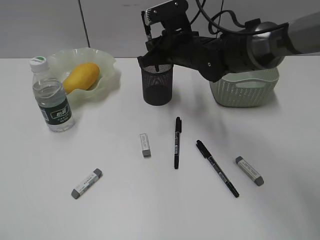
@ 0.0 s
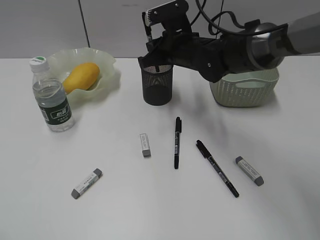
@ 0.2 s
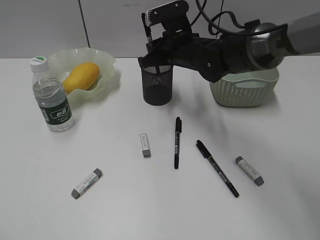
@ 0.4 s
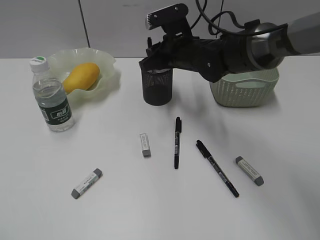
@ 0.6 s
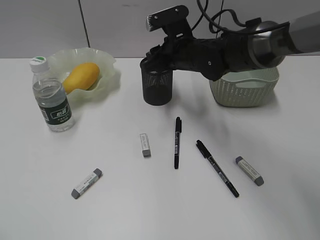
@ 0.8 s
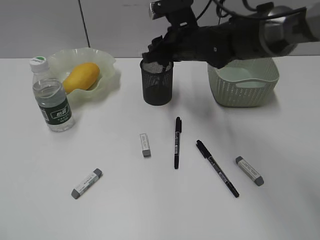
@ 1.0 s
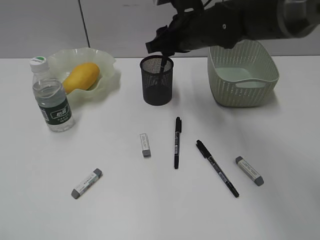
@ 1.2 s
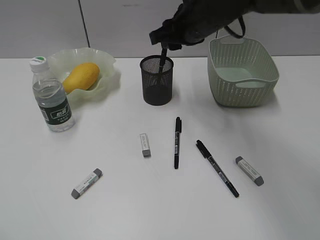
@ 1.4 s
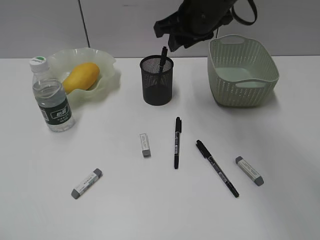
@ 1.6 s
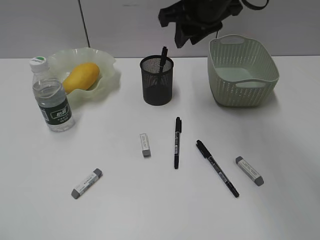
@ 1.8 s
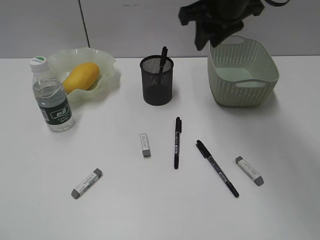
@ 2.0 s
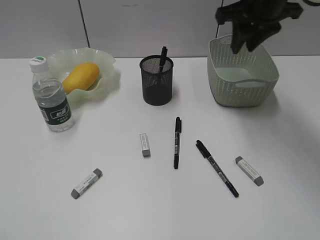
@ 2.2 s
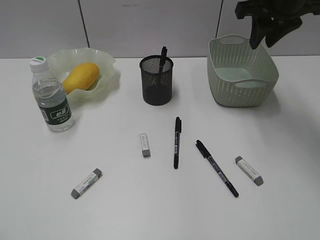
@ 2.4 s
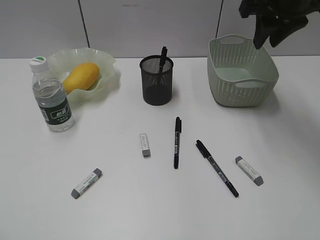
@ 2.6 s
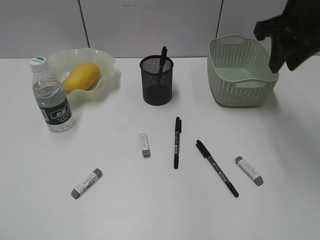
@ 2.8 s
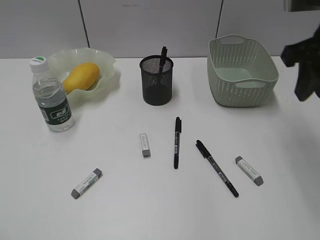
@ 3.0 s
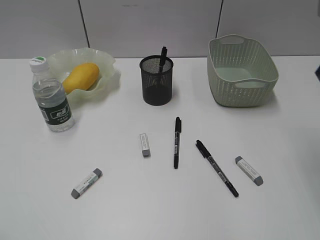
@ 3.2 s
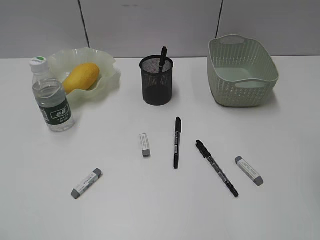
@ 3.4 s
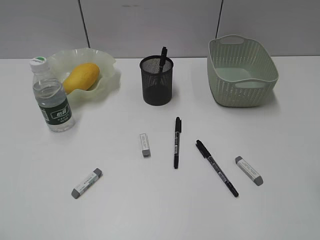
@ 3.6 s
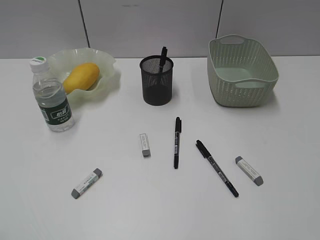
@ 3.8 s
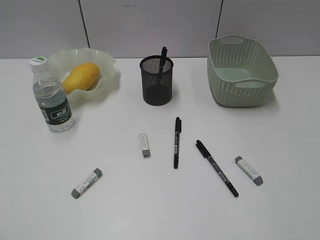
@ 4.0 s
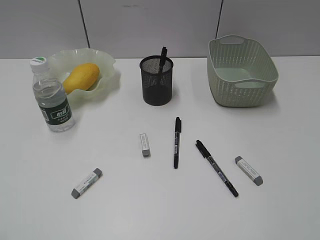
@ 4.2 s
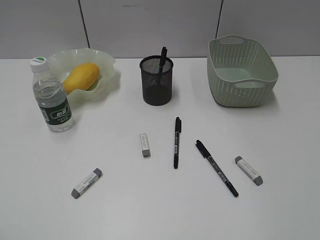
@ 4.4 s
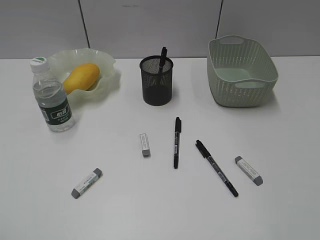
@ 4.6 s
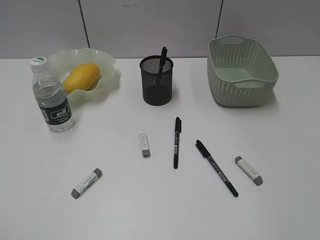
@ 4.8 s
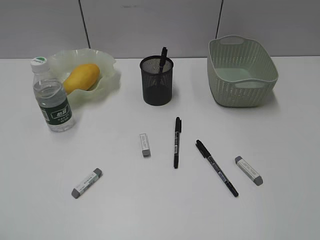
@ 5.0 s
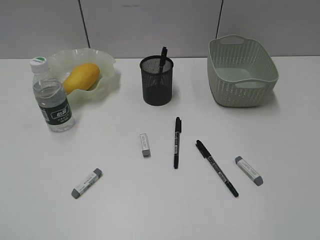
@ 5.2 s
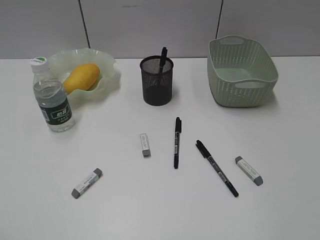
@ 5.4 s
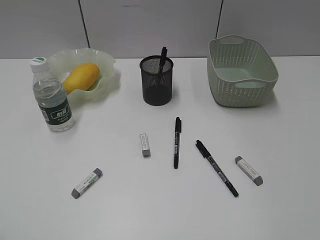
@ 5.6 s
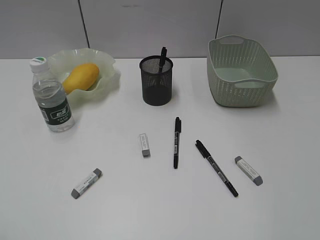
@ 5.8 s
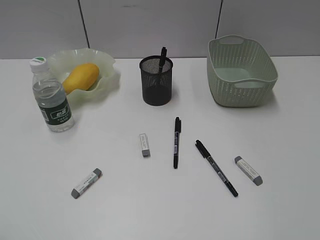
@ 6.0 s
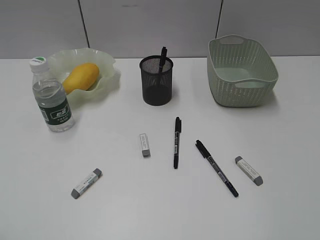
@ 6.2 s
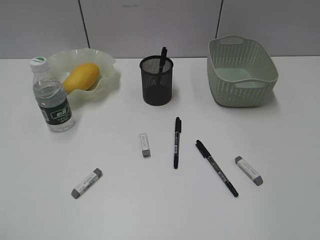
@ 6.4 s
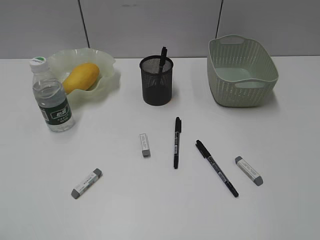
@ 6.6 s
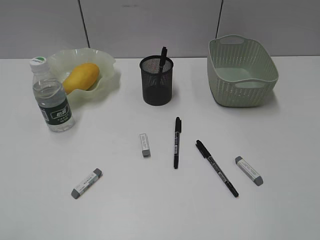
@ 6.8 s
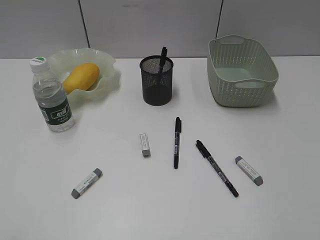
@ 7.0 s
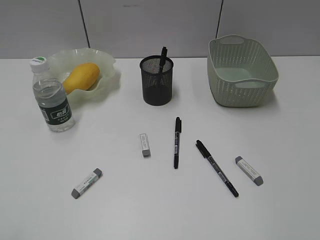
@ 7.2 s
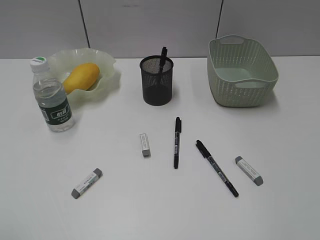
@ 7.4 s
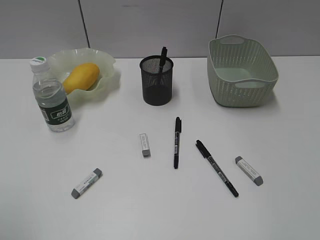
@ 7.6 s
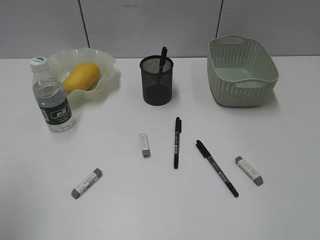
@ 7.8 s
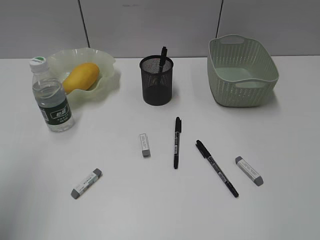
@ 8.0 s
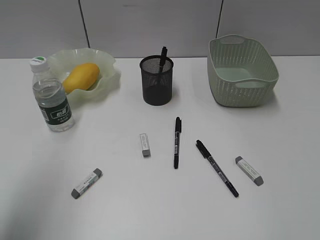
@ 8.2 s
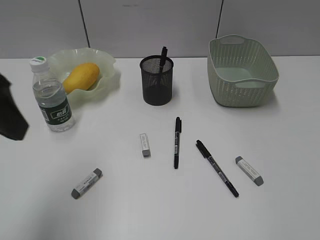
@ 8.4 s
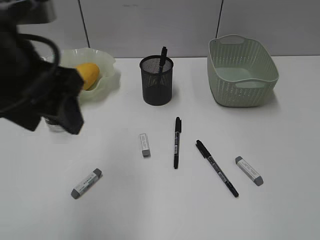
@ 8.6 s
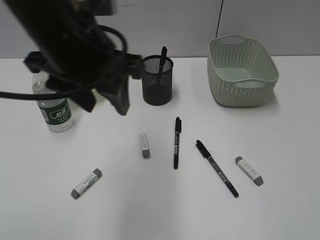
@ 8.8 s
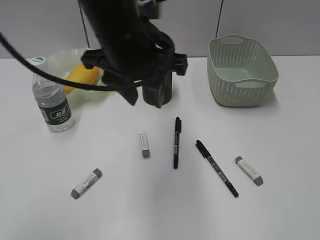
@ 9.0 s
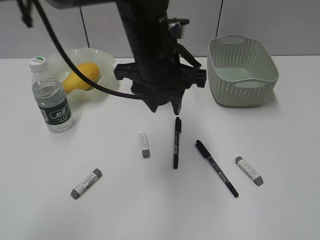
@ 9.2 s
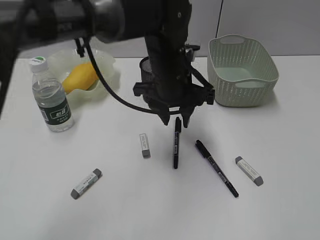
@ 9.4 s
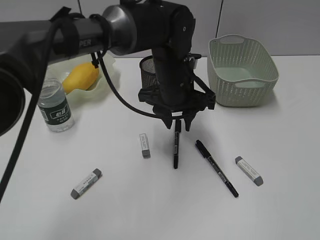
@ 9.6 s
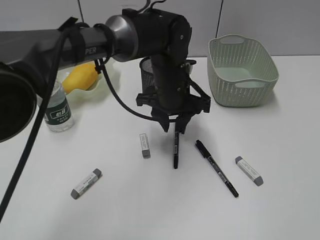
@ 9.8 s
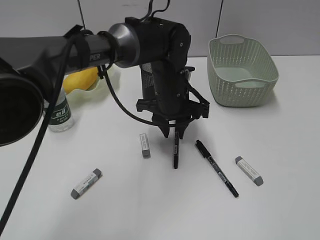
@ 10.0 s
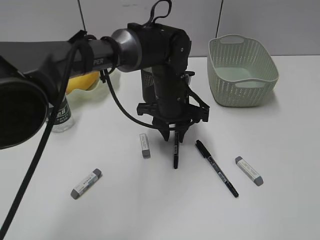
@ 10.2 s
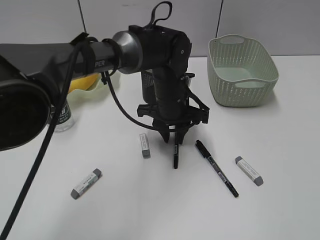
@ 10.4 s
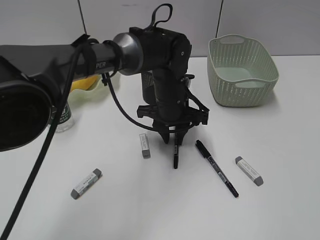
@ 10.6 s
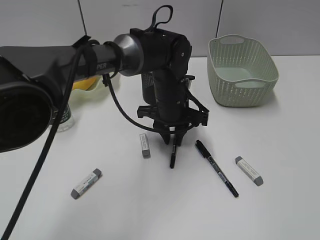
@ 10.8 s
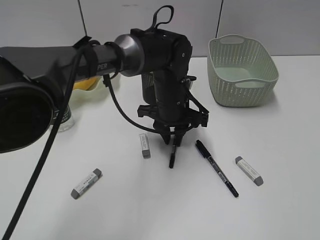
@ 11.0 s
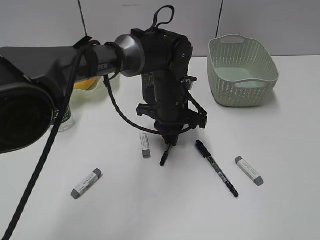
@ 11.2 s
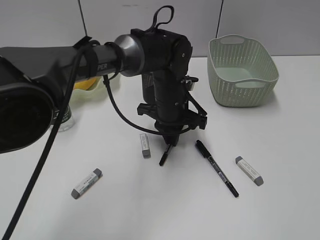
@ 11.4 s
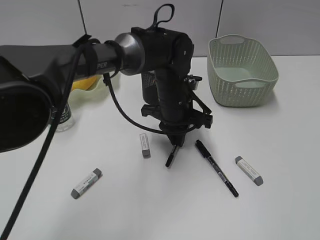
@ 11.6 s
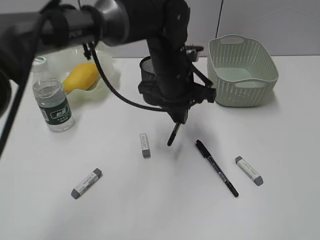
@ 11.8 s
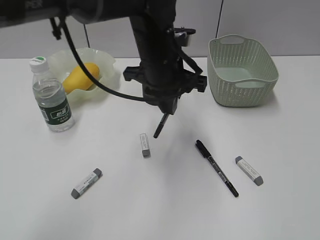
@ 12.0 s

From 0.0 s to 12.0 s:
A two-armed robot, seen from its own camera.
Step, from 1.0 s to 11.4 s: Grasp the black pen with left gripper.
From 0.0 s to 1.6 s: The right gripper goes about 10 cm upward, and opens up.
From 1.6 s to 3.0 s: The right gripper shifts about 20 cm to the right and backward.
From 3.0 s to 4.4 s: The right gripper heads backward, covering about 30 cm, and opens, then closes again.
From 7.6 s to 9.0 s: The left gripper moves to the right and forward, some 35 cm, and closes.
From 9.0 s to 10.4 s: The left gripper moves downward, forward and to the right, roughly 20 cm.
From 10.4 s to 12.0 s: The left gripper shifts roughly 10 cm upward.

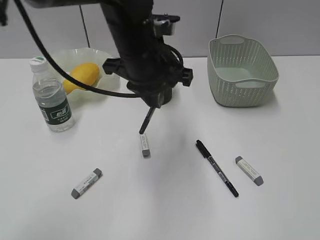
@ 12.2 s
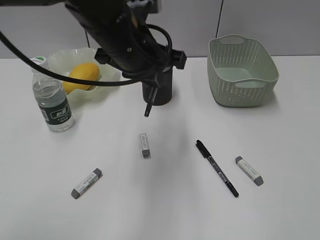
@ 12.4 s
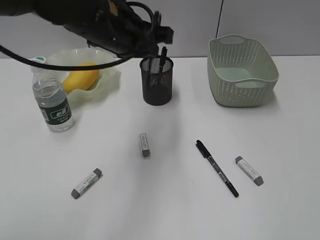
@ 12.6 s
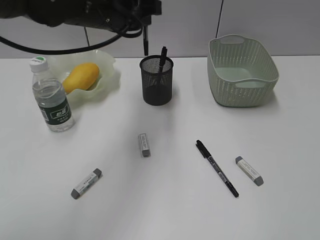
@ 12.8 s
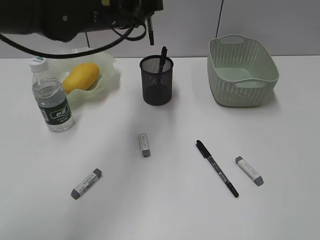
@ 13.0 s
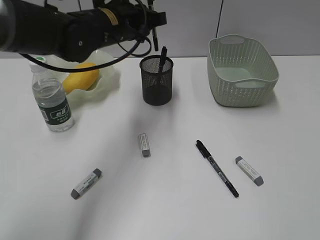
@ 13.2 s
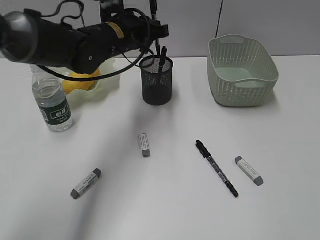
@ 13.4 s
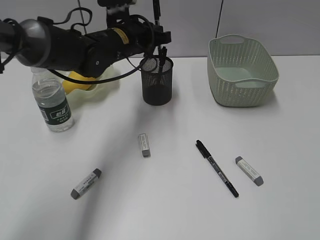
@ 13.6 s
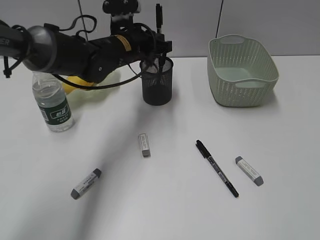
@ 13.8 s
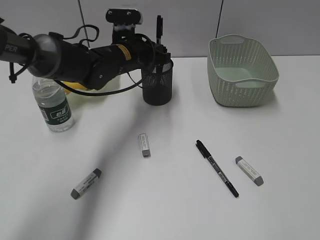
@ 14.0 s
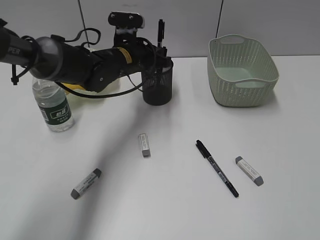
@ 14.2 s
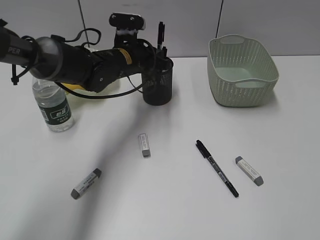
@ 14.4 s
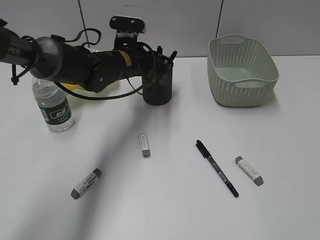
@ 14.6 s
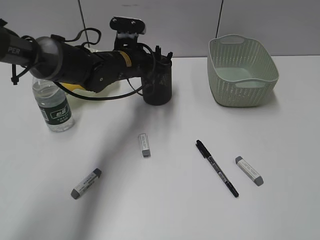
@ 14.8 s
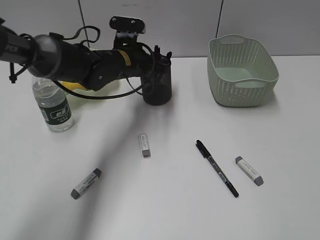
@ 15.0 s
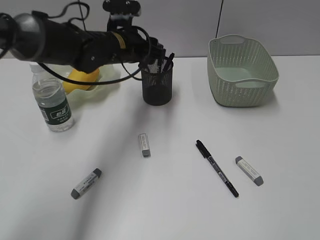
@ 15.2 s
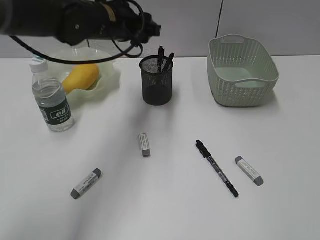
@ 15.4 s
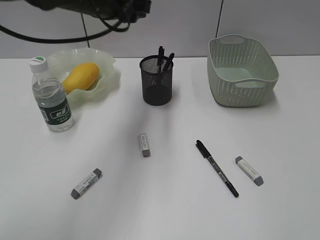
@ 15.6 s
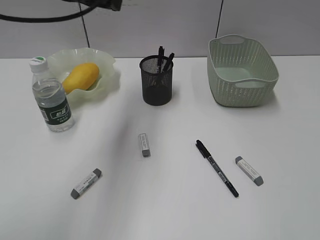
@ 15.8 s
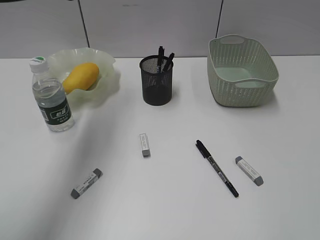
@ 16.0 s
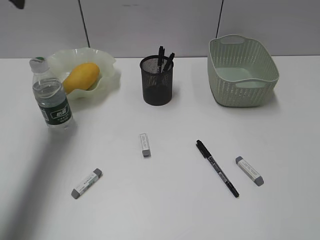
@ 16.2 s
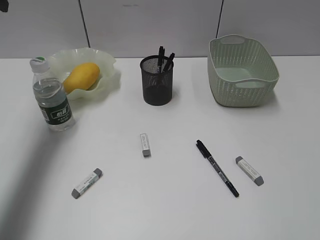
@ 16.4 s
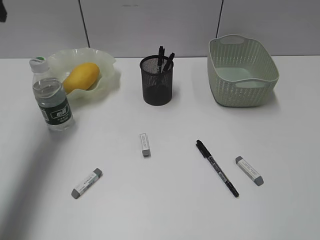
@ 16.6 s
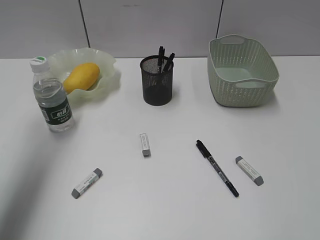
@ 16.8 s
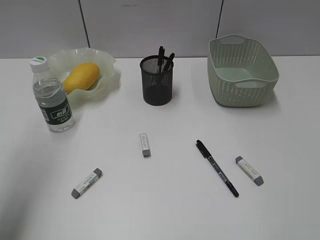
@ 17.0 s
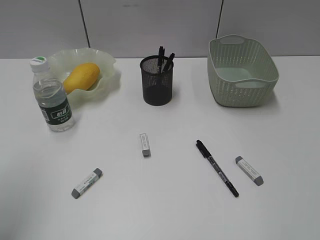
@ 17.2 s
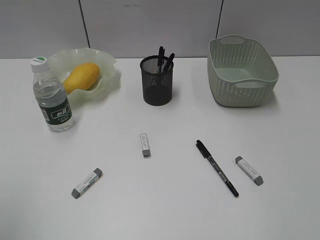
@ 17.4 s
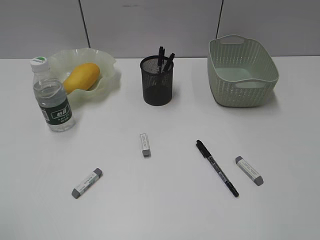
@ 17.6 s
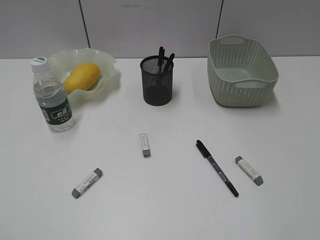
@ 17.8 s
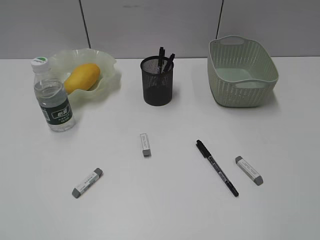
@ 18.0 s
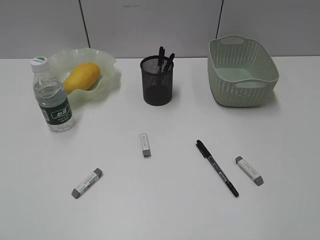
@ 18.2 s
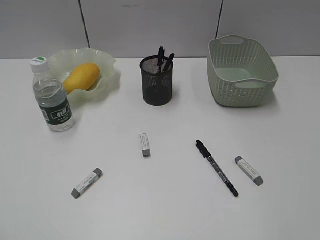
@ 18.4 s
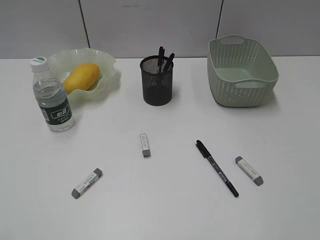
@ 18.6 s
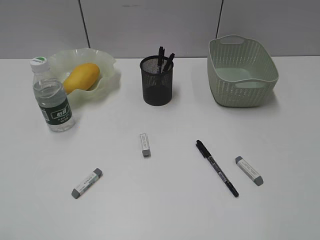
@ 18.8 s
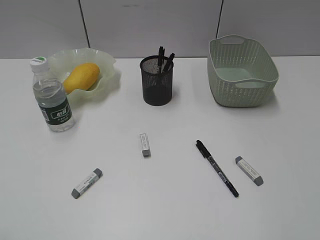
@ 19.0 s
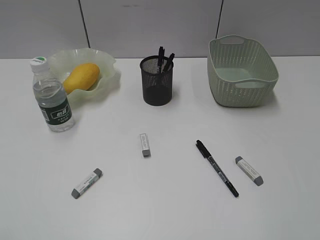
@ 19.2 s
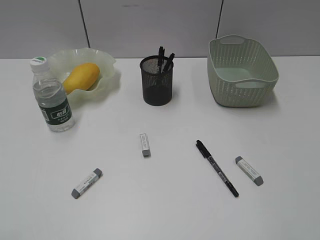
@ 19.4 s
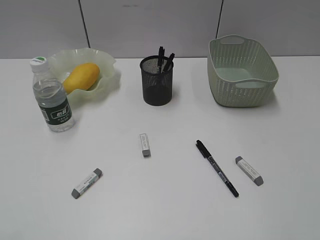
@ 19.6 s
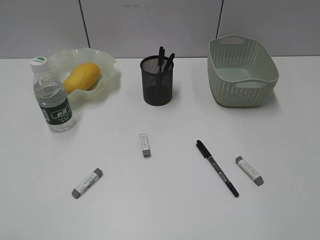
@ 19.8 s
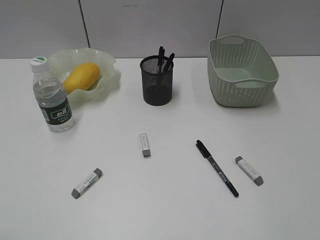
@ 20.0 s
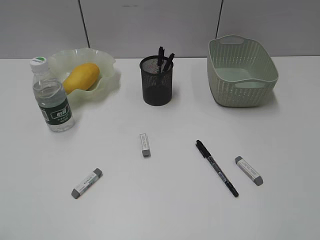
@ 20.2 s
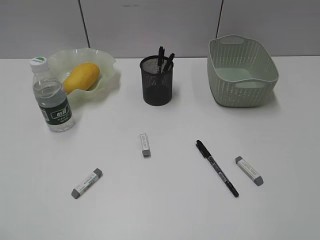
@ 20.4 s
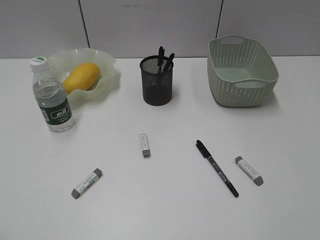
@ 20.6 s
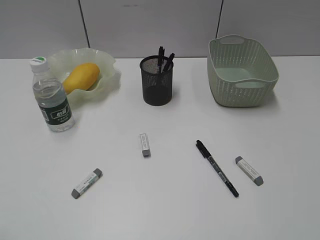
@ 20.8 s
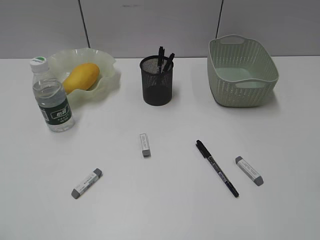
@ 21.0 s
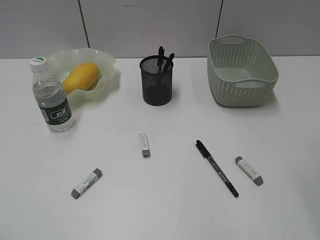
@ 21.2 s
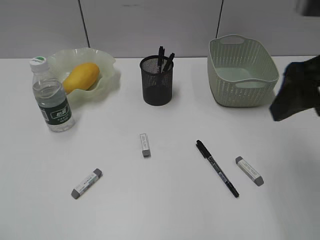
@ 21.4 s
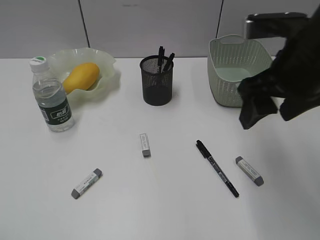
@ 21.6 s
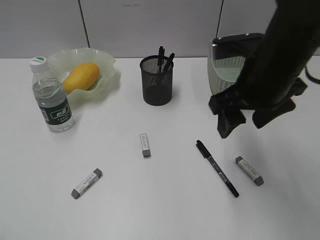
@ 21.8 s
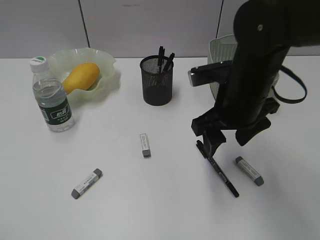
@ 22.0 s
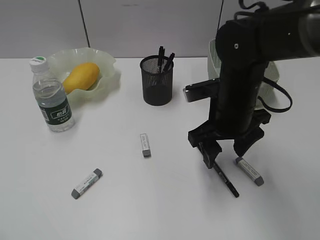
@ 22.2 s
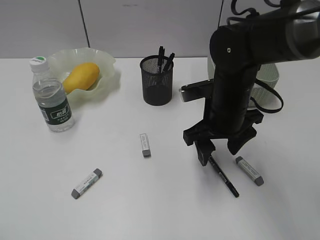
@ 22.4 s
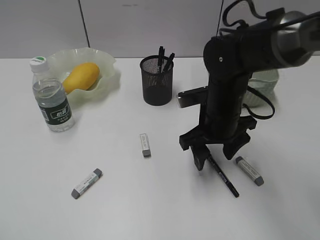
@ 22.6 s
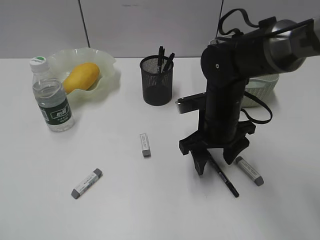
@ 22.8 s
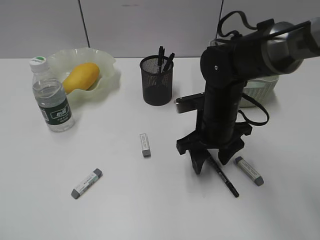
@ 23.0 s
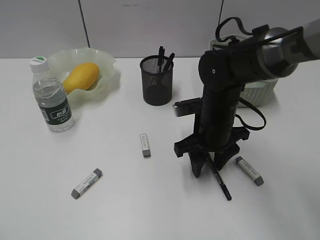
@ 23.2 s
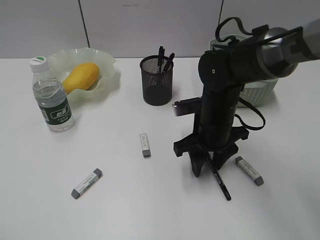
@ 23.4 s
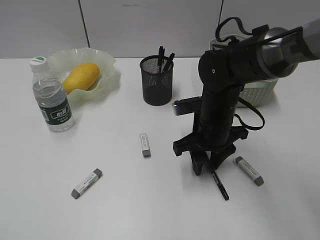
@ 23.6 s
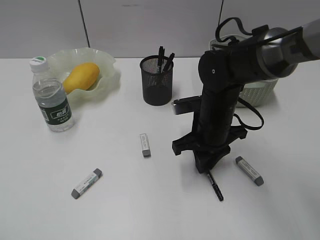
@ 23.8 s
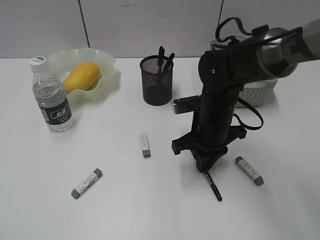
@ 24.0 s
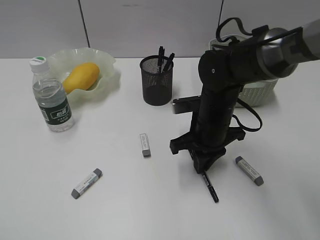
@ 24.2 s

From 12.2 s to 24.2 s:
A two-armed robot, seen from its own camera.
Step, from 12.2 s to 15.0 s: Place the black pen in pen holder with left gripper.
Step, from 15.2 s to 24.0 s: Grasp the black pen with right gripper.
From 12.2 s to 13.8 s: The left gripper heads forward and downward, covering about 15 cm.
From 13.8 s to 15.2 s: The left gripper opens its fingers.
From 15.2 s to 16.6 s: The left gripper shifts roughly 30 cm to the left and upward.
From 16.6 s to 18.2 s: The left gripper shifts approximately 40 cm backward.
From 21.2 s to 22.6 s: The right gripper moves downward, to the left and forward, roughly 30 cm.
From 22.6 s to 24.2 s: The right gripper closes up.
